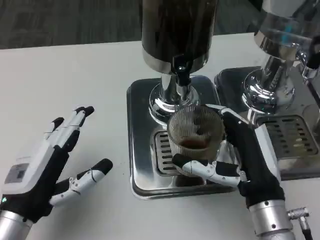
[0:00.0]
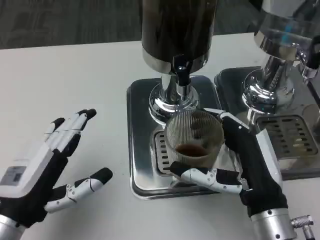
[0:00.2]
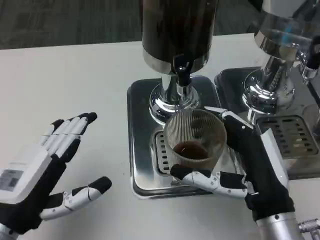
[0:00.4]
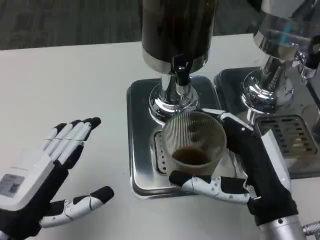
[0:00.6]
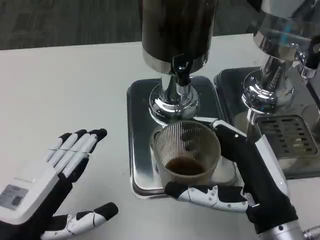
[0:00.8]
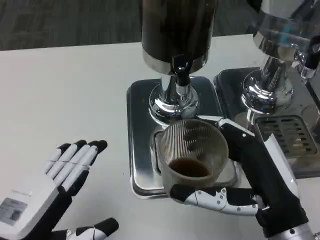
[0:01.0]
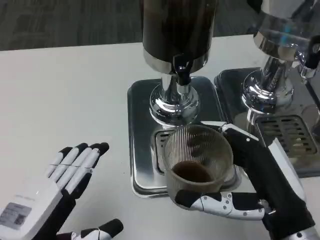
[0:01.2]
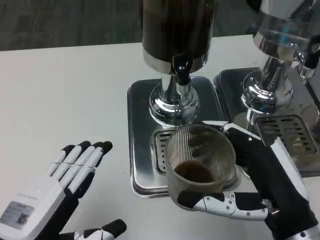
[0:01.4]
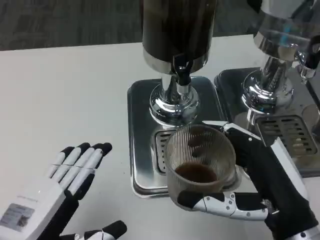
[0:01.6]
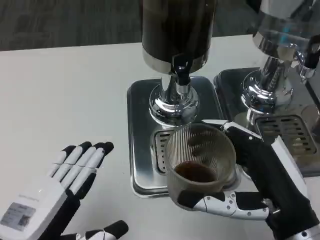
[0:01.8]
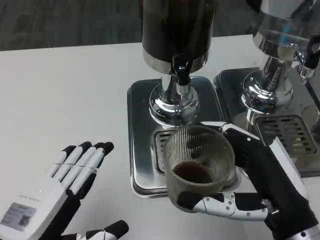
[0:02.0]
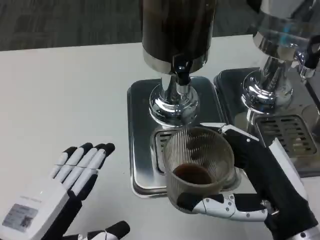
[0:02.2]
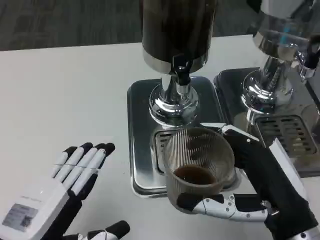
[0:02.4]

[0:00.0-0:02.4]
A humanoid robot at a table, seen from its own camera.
Task of the whole recording: Grasp the cup under the faucet to collect the drink, then remove the cup.
0:00.0 to 0:01.2: The two hands go roughly 5 cm backward.
0:01.2 to 0:02.4: The two hands keep their place.

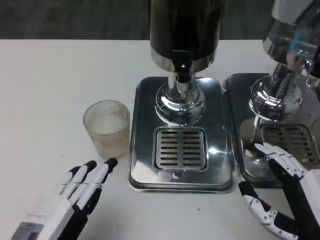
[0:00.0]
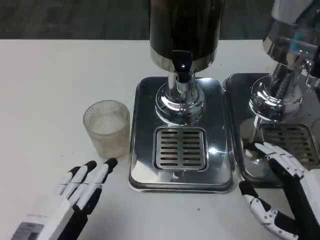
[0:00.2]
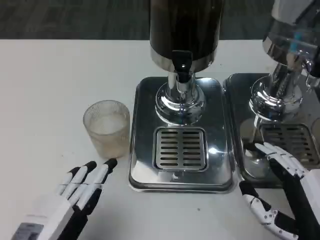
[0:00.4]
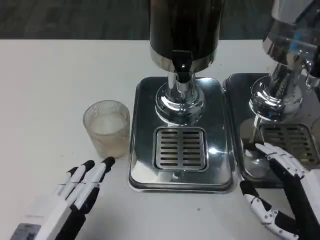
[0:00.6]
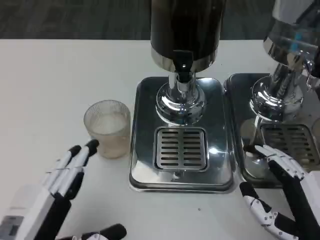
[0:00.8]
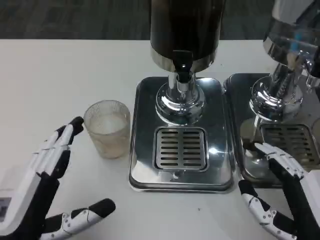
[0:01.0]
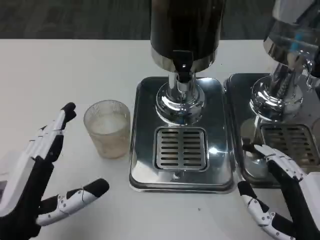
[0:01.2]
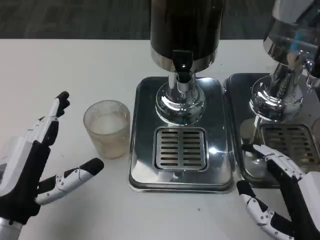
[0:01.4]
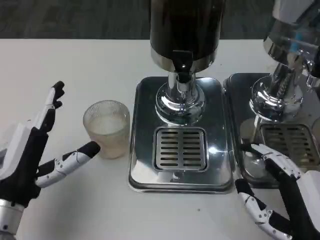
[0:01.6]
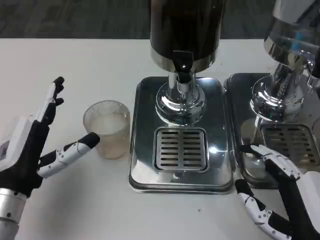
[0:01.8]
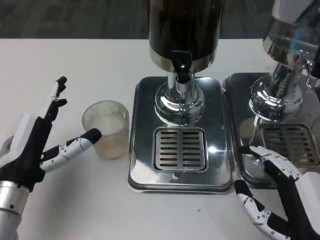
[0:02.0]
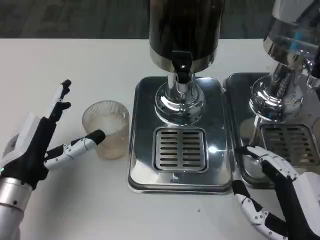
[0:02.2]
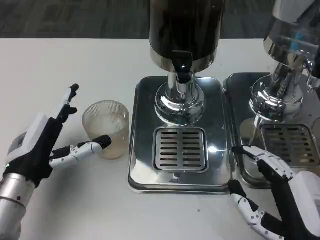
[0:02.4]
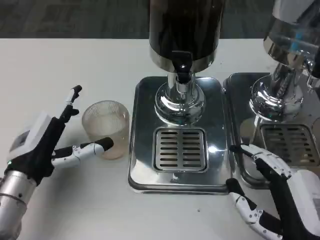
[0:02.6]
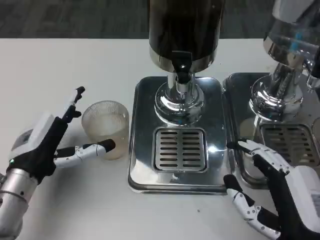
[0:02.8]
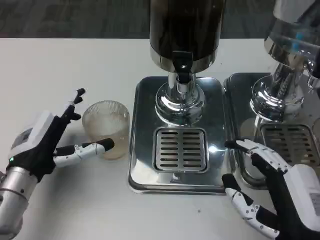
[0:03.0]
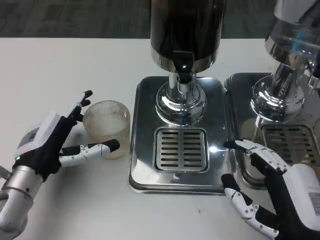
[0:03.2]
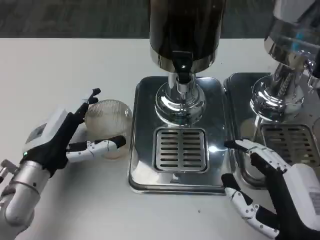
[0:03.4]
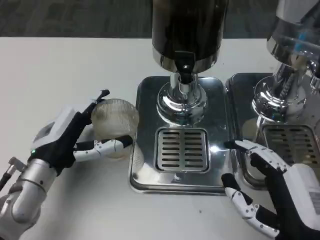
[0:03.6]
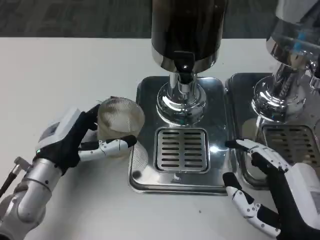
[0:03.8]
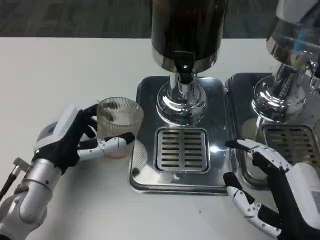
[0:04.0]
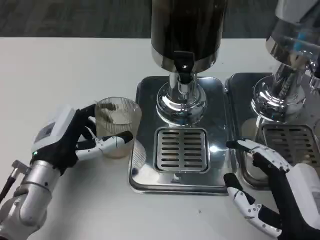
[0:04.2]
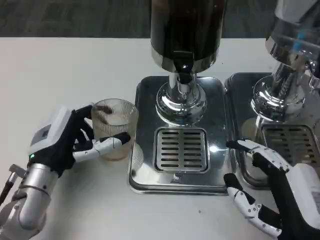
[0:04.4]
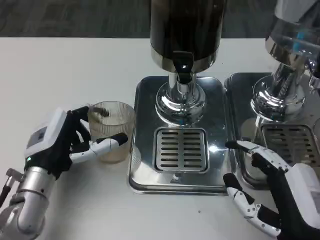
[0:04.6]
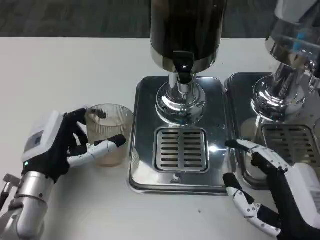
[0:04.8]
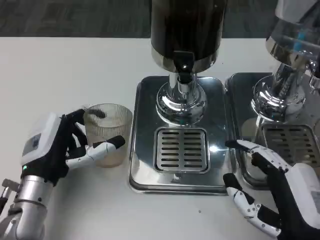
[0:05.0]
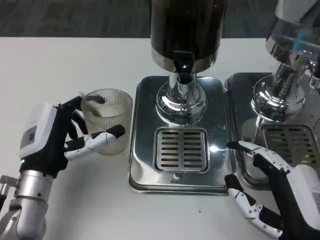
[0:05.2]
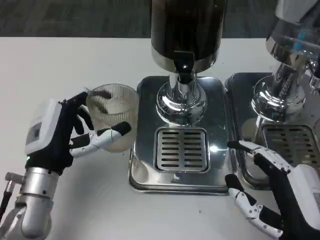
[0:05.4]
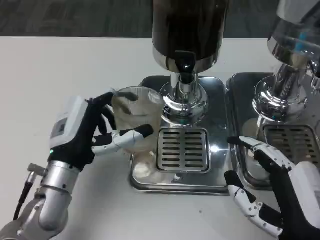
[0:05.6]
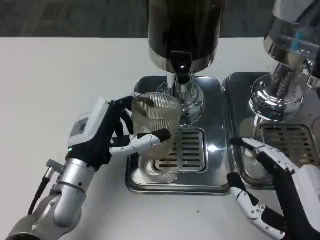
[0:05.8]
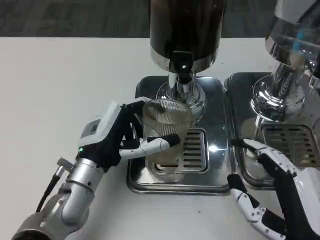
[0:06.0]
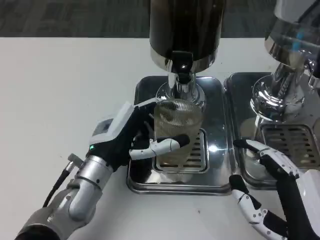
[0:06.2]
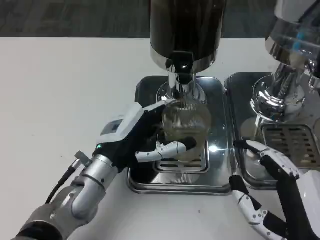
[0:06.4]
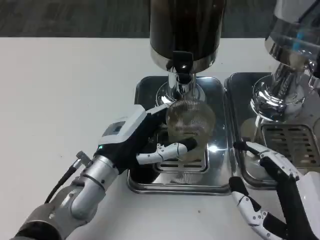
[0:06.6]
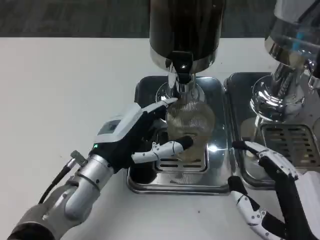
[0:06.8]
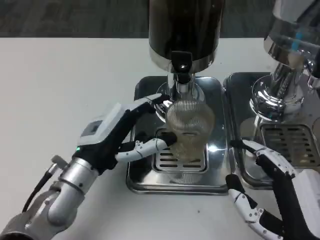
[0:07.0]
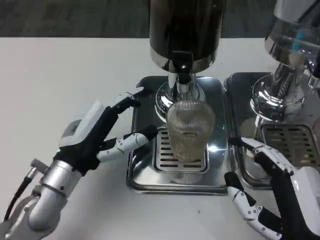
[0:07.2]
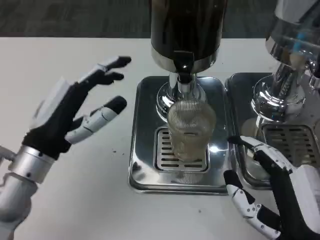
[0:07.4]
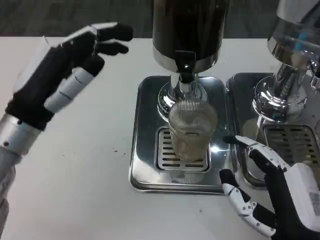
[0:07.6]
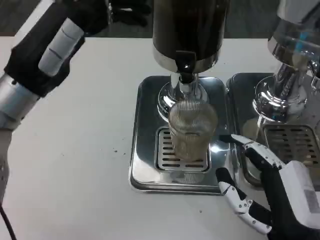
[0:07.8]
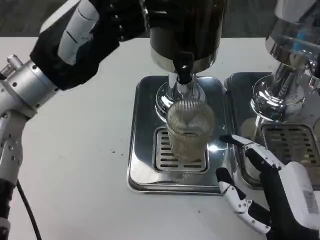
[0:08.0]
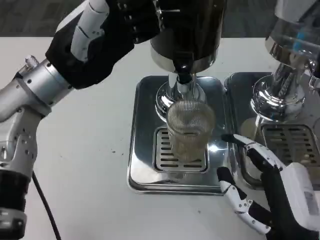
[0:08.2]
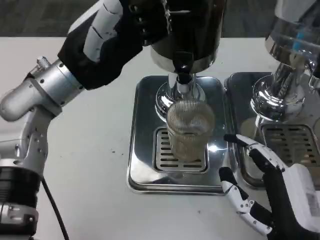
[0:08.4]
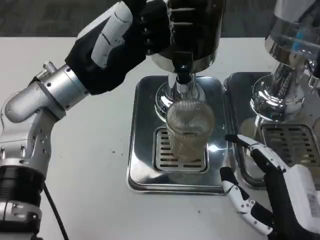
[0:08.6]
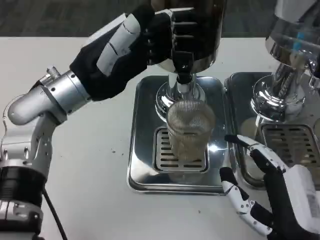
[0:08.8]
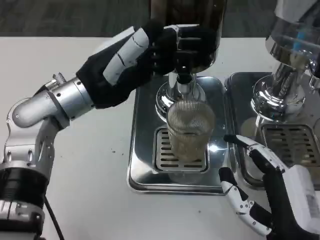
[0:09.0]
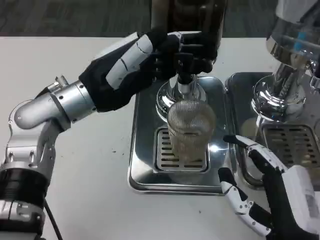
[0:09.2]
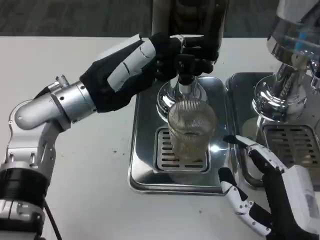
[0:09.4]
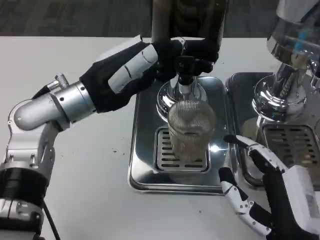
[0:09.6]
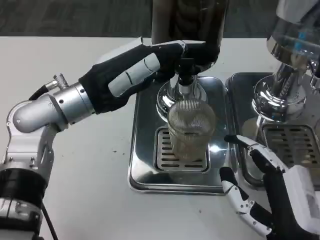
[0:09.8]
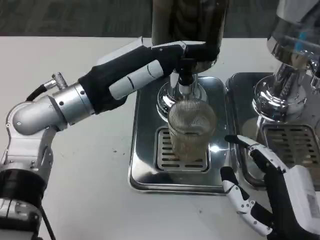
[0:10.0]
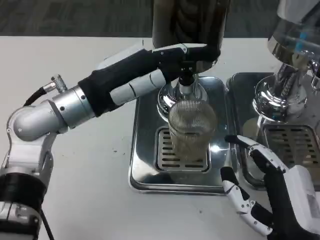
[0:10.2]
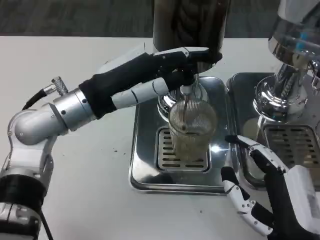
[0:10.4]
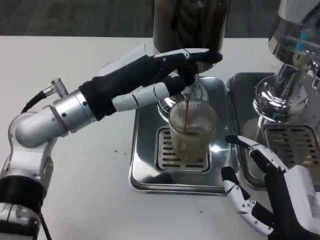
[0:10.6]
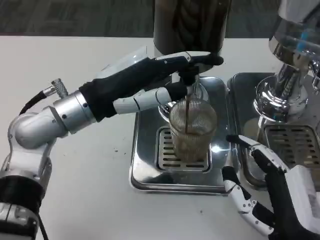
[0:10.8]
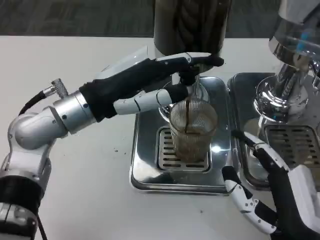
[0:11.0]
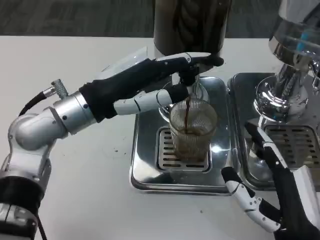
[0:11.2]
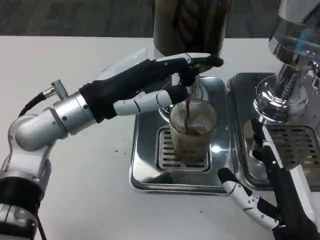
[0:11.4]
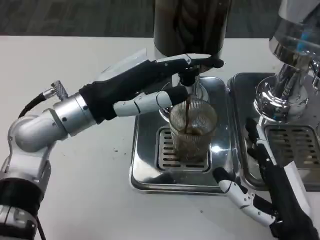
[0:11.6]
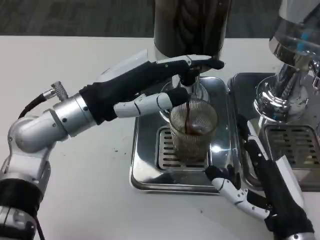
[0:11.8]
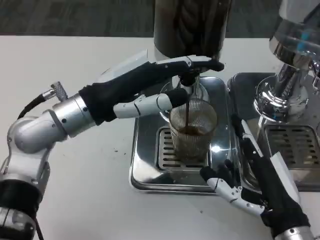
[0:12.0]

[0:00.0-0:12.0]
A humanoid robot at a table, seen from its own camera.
Task of the whole recording: Grasp the cup under the faucet to collect the drink, then remove the cup.
0:00.0 to 0:01.6: The left hand heads forward, covering approximately 10 cm.
0:01.6 to 0:03.0: The left hand travels forward by approximately 5 cm.
0:03.0 to 0:04.4: The hands stay close to where they were, moving slightly.
0:04.4 to 0:06.0: The left hand goes about 5 cm to the right.
0:06.0 to 0:07.6: The left hand heads upward and to the left, covering some 15 cm.
0:07.6 to 0:09.0: The left hand travels forward by roughly 5 cm.

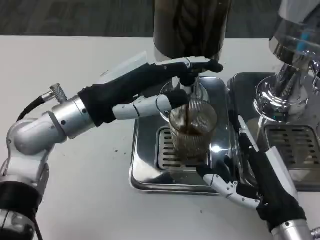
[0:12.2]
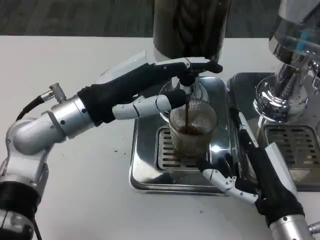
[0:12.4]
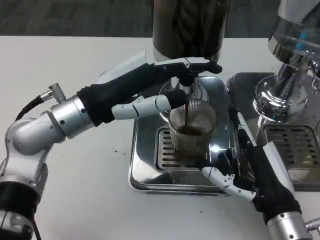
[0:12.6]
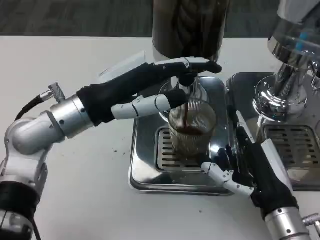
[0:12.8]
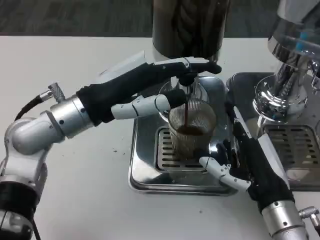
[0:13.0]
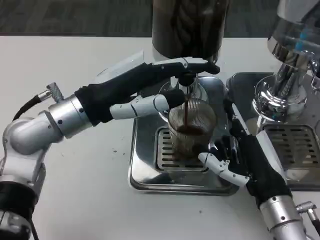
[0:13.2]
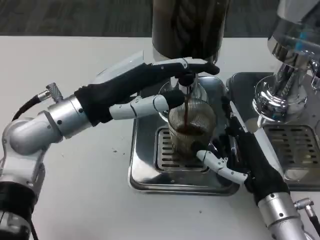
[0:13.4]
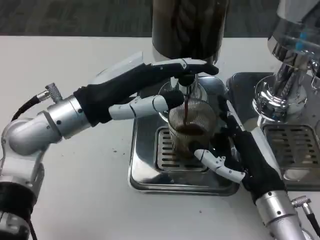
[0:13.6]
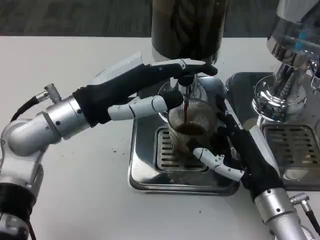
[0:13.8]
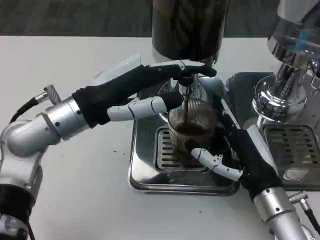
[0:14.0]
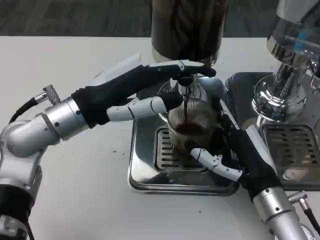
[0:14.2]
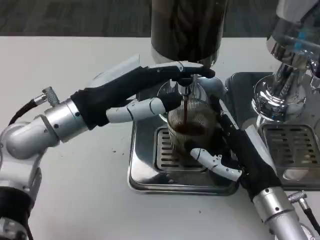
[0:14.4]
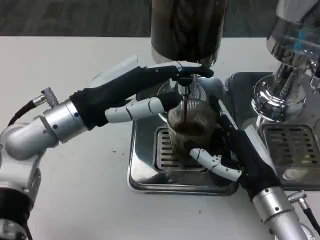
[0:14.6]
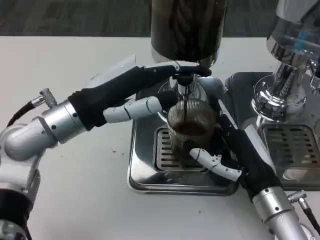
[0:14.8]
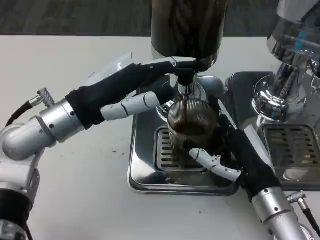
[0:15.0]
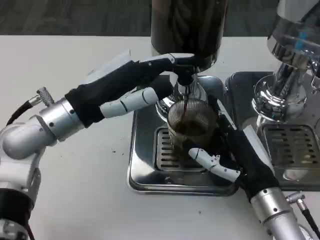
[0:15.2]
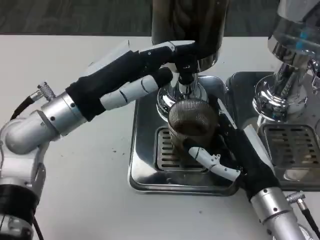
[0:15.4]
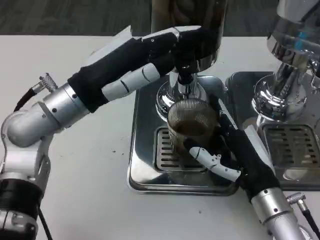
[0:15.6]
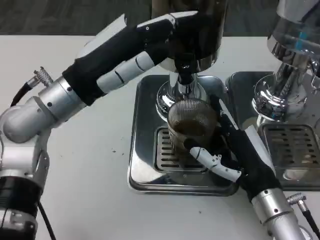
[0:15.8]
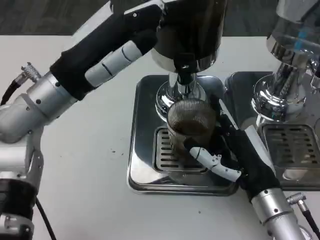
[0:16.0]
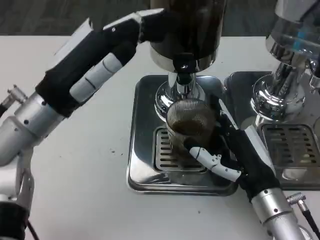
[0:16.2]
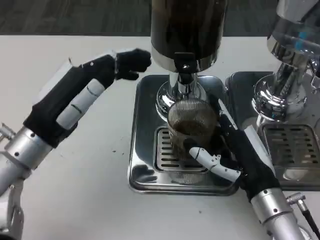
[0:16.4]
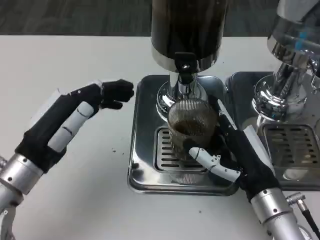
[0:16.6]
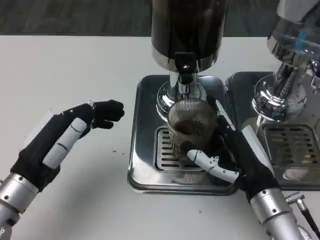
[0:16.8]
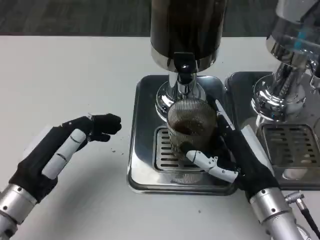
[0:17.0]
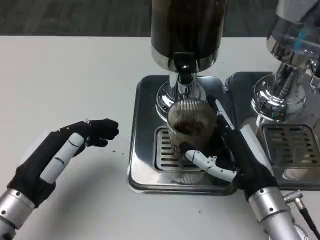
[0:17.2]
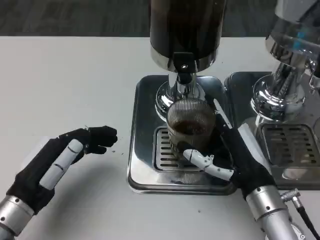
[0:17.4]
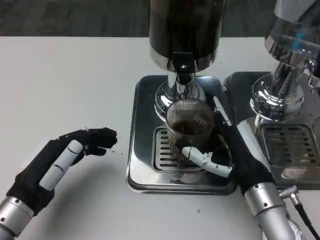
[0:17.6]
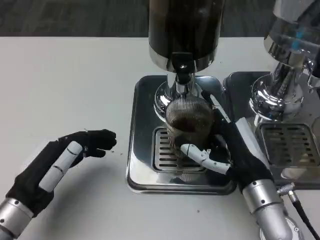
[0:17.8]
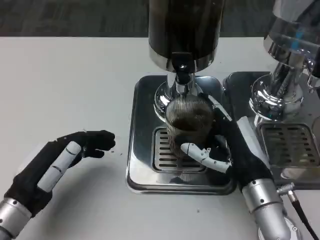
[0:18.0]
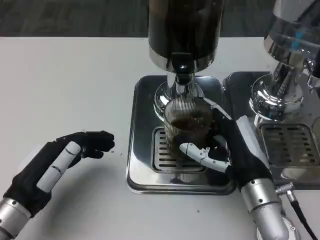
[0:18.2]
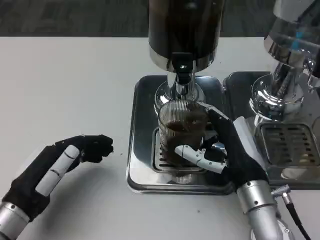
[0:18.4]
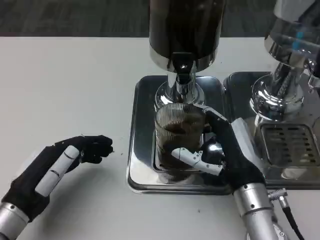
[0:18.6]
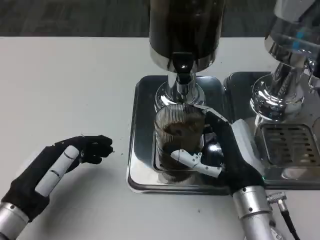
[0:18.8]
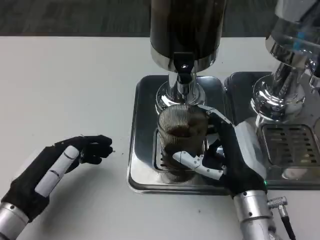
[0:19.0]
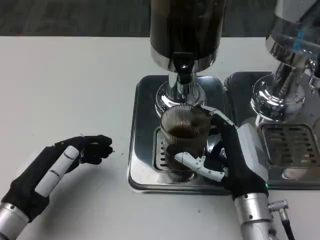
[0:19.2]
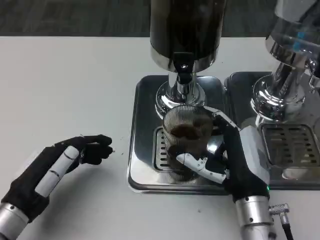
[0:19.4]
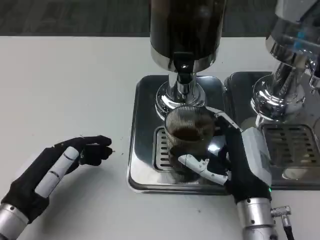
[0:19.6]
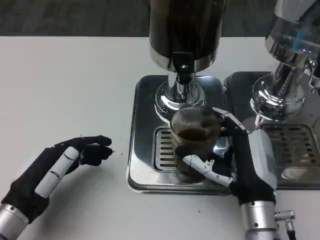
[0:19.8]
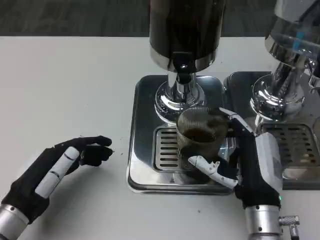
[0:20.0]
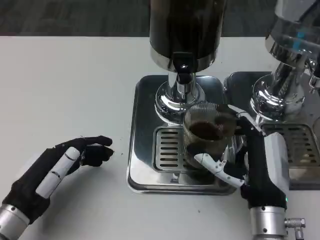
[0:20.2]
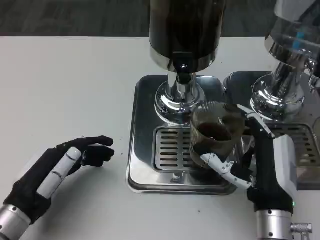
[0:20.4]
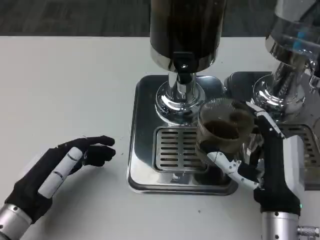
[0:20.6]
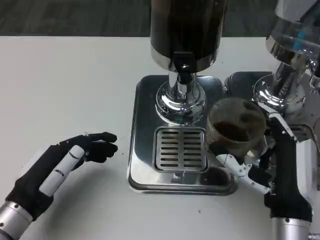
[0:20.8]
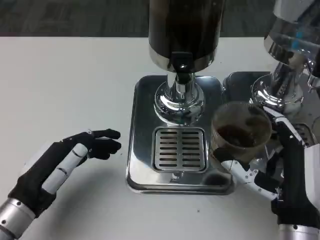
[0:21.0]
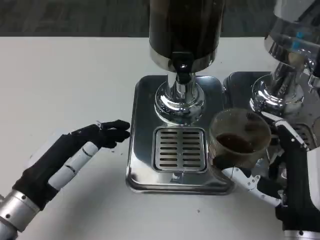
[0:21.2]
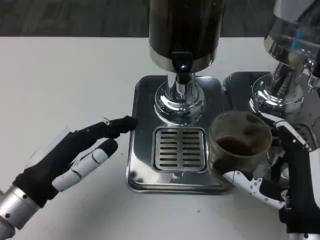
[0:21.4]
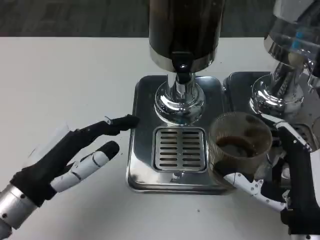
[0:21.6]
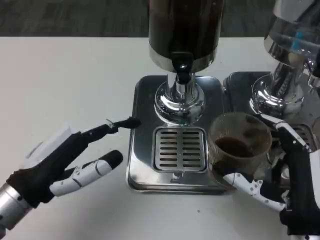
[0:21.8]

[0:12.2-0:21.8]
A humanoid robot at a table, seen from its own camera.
Task of the whole recording: Grasp the cup under the faucet to collect the drink, then remove the cup.
0:12.2 to 0:13.8: The right hand travels forward by approximately 5 cm.
0:13.8 to 0:15.4: There are only small adjustments of the hands.
0:15.4 to 0:17.0: The left hand shifts roughly 15 cm downward, backward and to the left.
0:18.6 to 0:20.2: The hands make only small movements.
0:20.2 to 0:21.8: The right hand is displaced backward by some 5 cm, while the left hand heads upward, covering approximately 5 cm.
